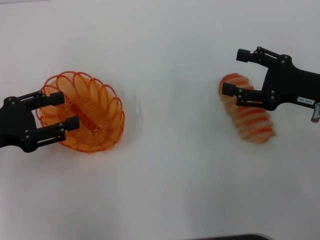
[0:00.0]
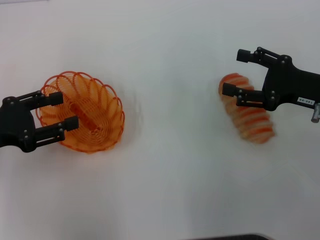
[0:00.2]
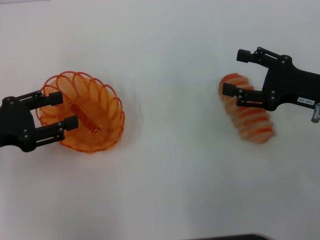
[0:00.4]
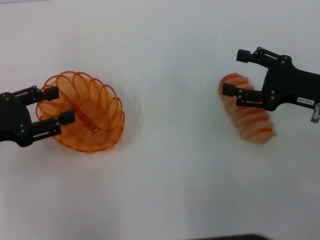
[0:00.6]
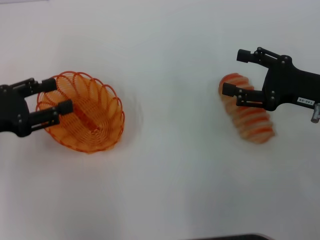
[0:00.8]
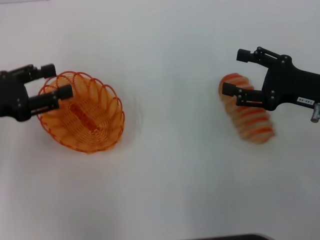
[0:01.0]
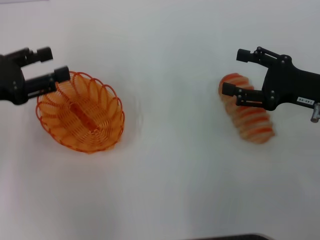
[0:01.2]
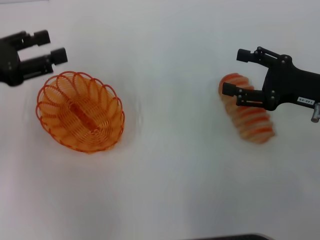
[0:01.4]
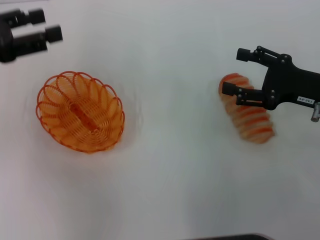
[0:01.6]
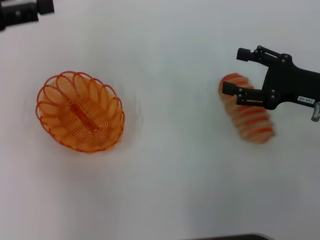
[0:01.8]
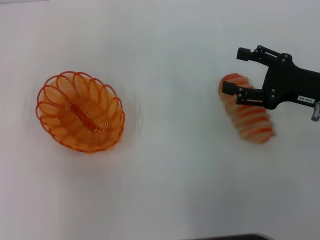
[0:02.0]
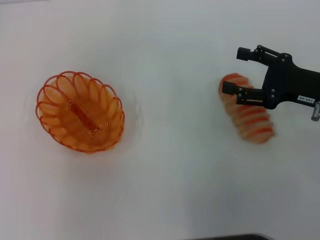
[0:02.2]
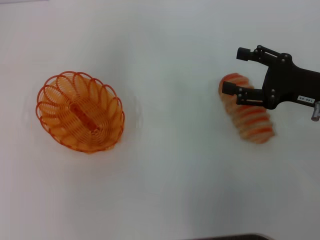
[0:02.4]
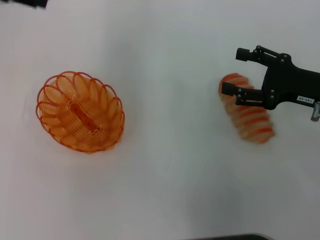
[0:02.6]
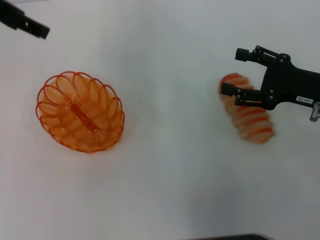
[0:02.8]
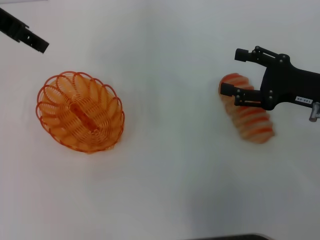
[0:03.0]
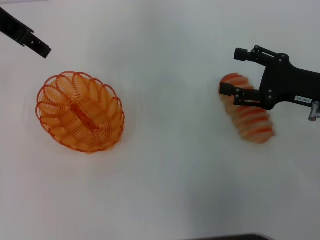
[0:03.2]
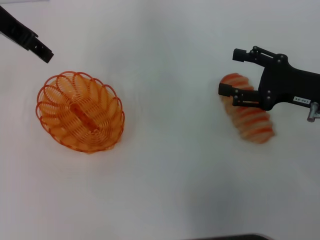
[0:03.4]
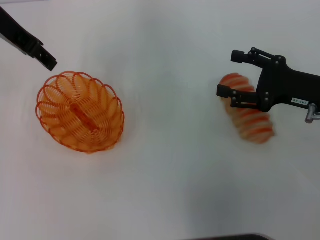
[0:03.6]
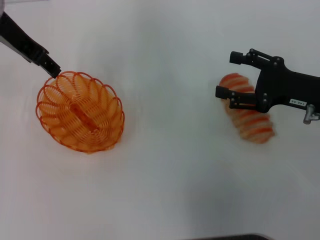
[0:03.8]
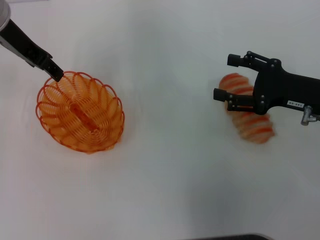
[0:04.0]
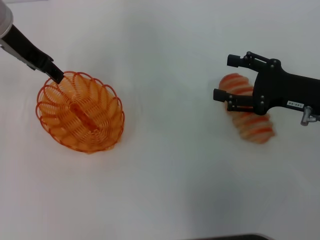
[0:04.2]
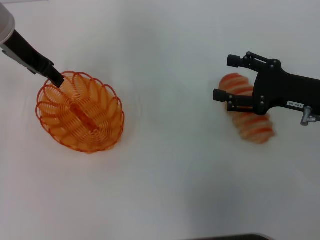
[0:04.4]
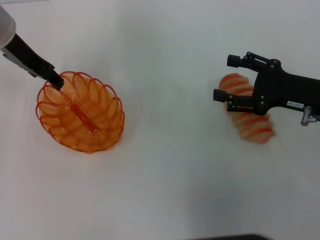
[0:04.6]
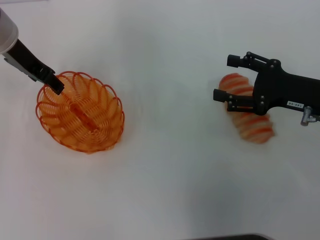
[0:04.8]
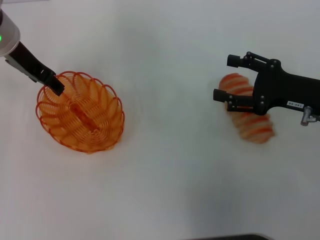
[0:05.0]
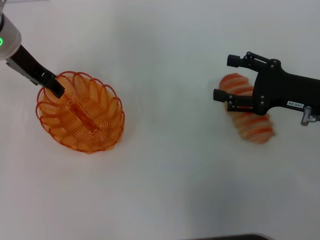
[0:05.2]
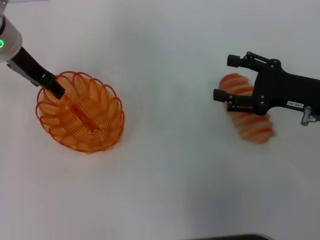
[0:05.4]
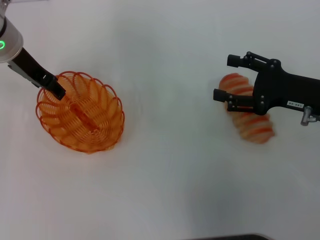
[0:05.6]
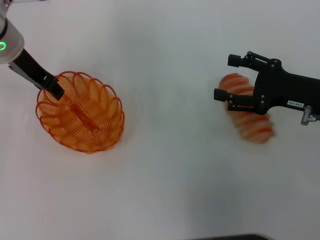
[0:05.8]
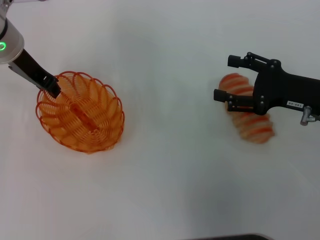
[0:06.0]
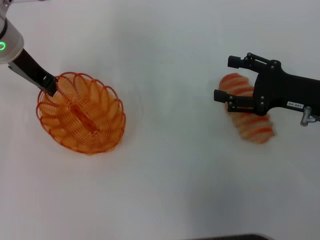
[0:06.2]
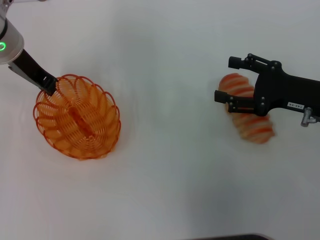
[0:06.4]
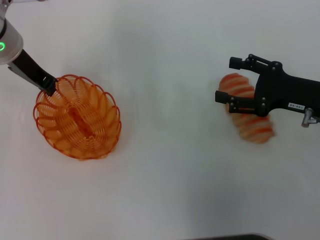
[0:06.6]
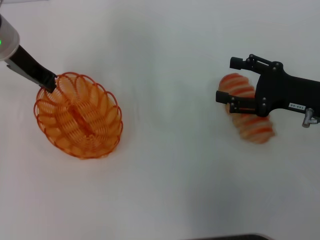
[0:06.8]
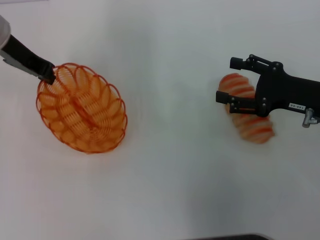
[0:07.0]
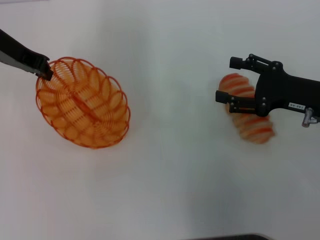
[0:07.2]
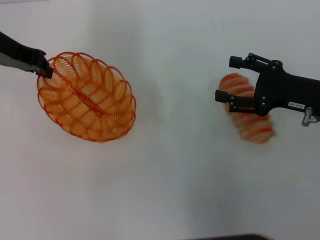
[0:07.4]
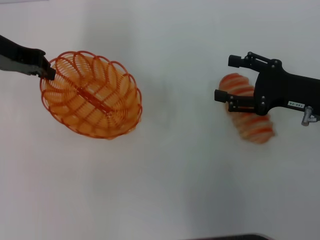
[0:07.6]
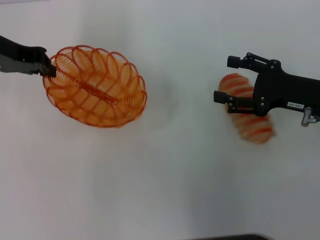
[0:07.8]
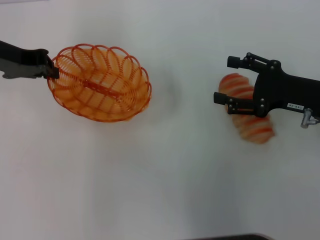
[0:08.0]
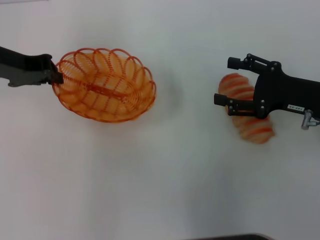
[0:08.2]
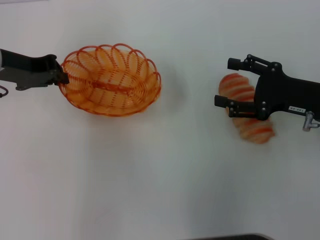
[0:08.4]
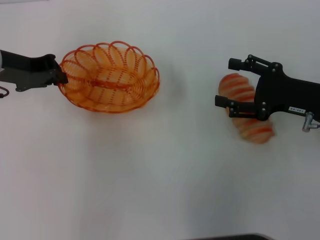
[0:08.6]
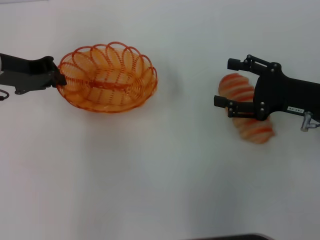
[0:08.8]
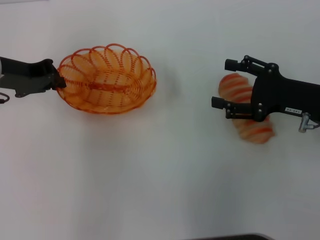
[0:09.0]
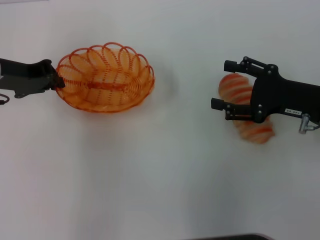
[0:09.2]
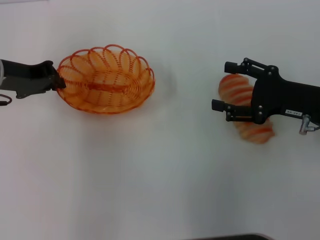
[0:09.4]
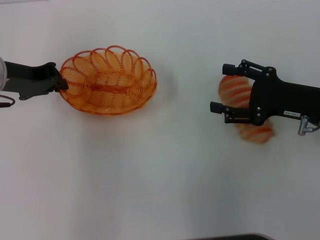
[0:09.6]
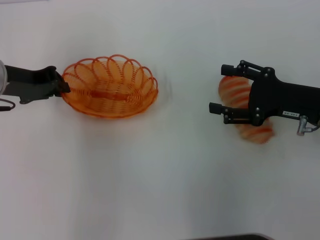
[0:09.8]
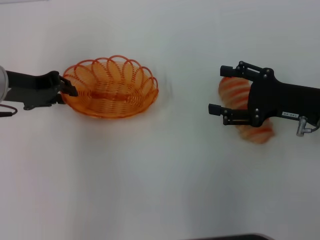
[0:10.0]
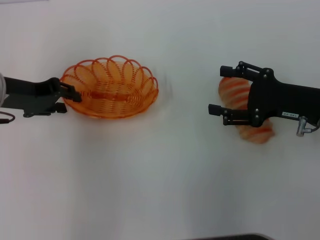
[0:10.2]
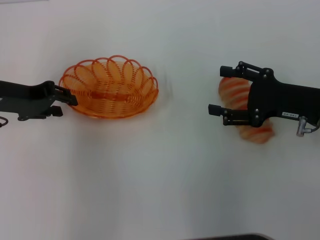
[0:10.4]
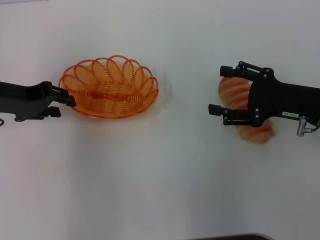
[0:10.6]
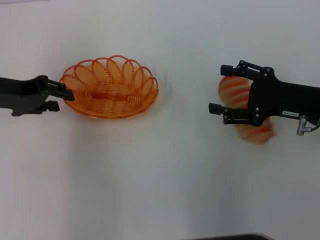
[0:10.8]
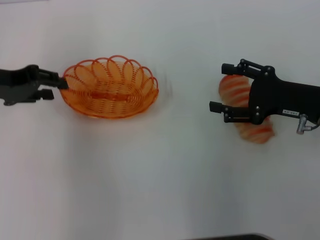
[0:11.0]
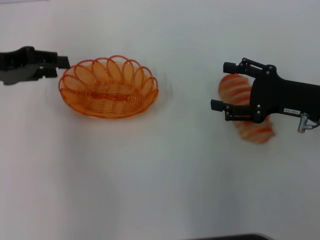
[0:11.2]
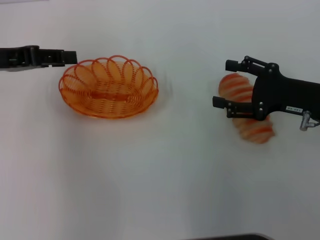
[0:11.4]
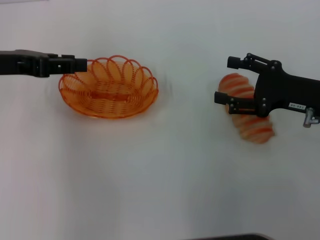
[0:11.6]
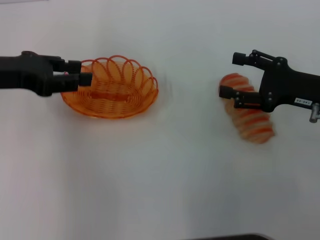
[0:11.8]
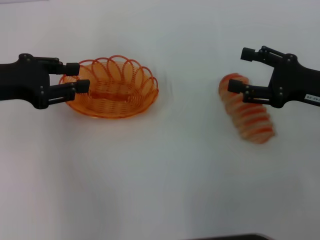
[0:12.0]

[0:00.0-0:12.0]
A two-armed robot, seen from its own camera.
Step, 0:00.0 to 0:07.4: Pick up the basket with the left gripper.
Step, 0:07.6 to 0:11.2: Place the basket in the center of view with the left gripper.
0:00.0 to 0:01.6: The left gripper moves upward and forward, some 10 cm.
0:01.6 to 0:03.0: The left gripper heads upward, forward and to the right, covering approximately 15 cm.
0:03.0 to 0:04.4: The left gripper shifts approximately 10 cm downward.
0:04.4 to 0:06.0: The grippers make only small movements.
0:06.0 to 0:07.6: The left gripper moves approximately 5 cm, and closes up.
0:07.6 to 0:09.0: The left gripper is displaced downward by some 5 cm.
0:09.0 to 0:10.4: The left gripper opens its fingers.

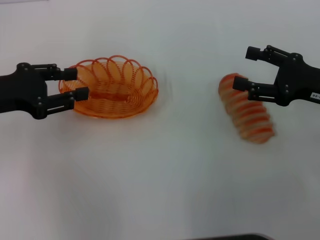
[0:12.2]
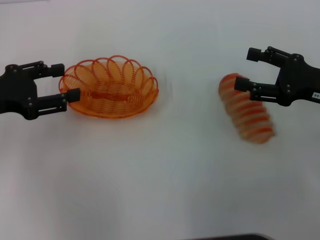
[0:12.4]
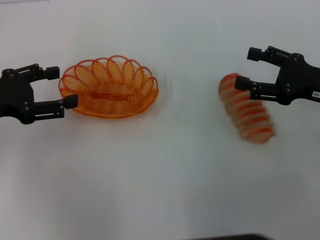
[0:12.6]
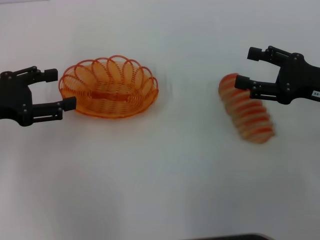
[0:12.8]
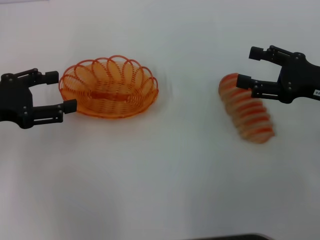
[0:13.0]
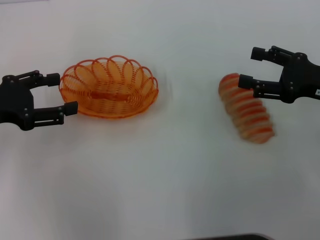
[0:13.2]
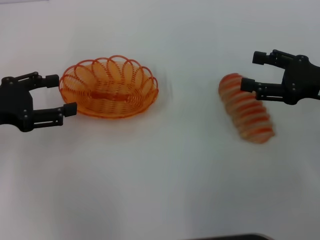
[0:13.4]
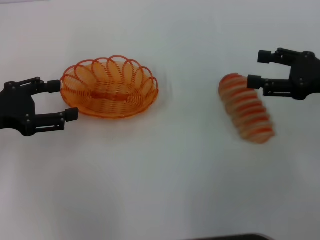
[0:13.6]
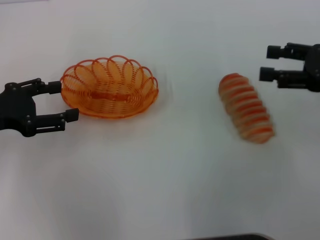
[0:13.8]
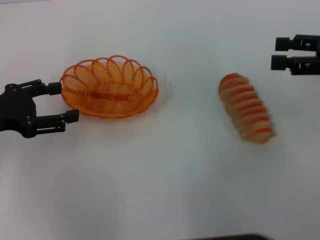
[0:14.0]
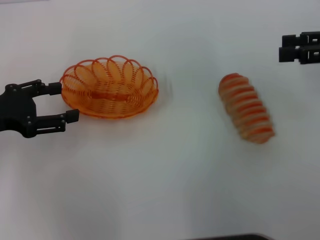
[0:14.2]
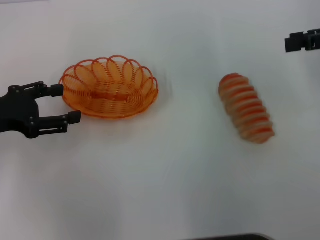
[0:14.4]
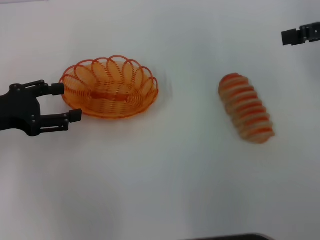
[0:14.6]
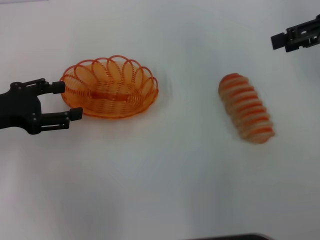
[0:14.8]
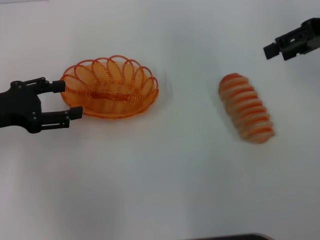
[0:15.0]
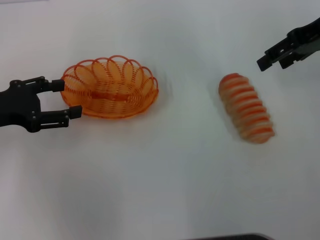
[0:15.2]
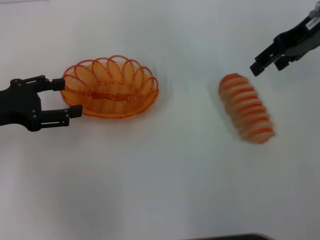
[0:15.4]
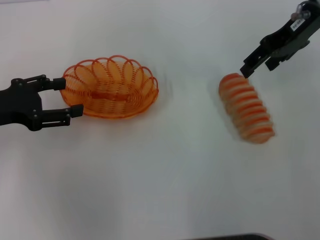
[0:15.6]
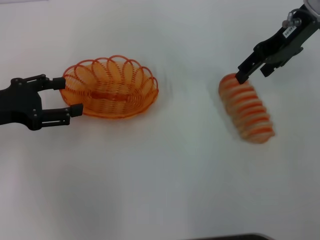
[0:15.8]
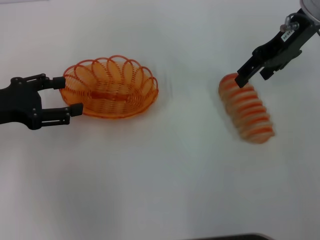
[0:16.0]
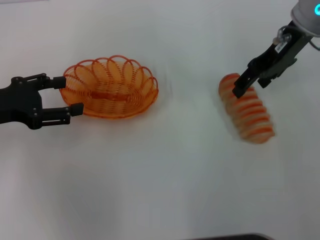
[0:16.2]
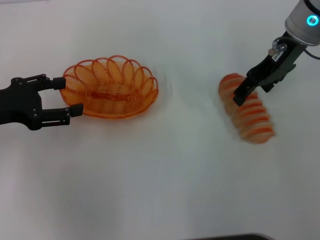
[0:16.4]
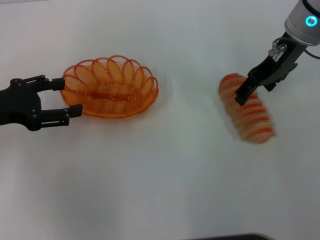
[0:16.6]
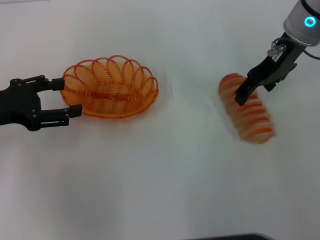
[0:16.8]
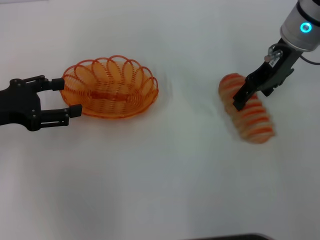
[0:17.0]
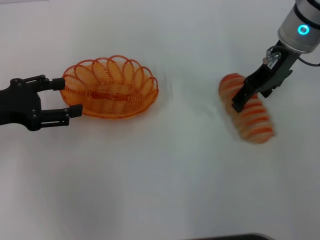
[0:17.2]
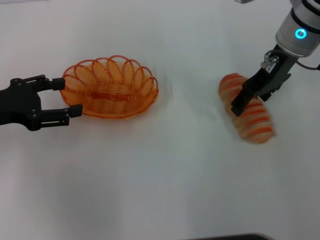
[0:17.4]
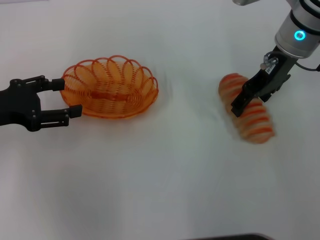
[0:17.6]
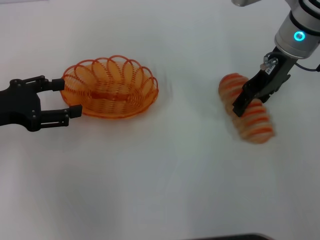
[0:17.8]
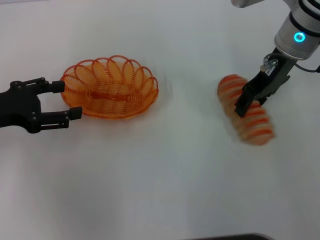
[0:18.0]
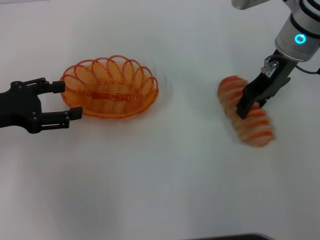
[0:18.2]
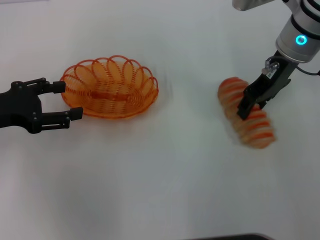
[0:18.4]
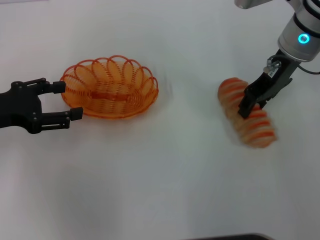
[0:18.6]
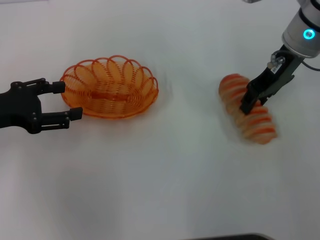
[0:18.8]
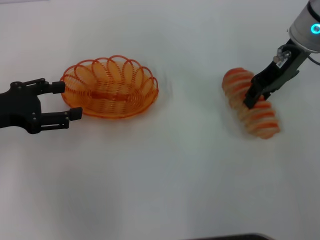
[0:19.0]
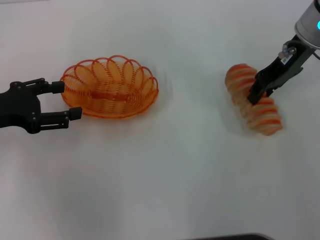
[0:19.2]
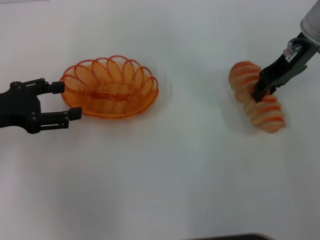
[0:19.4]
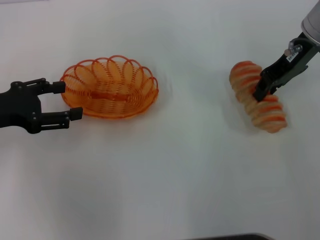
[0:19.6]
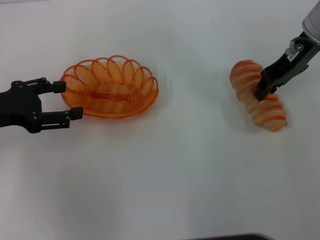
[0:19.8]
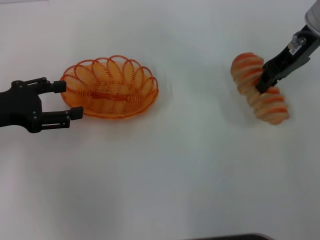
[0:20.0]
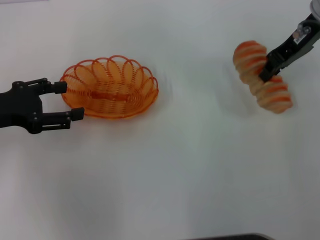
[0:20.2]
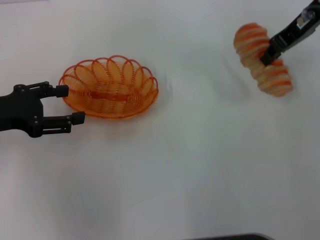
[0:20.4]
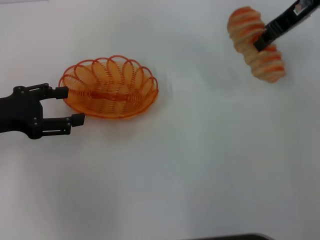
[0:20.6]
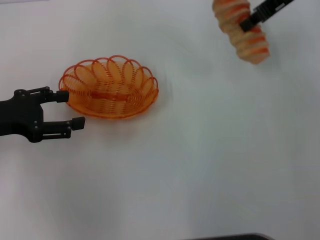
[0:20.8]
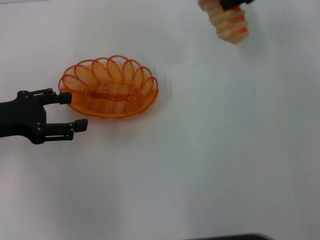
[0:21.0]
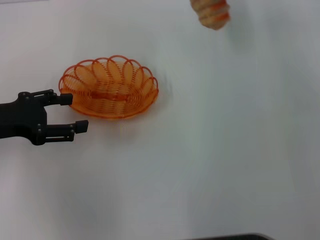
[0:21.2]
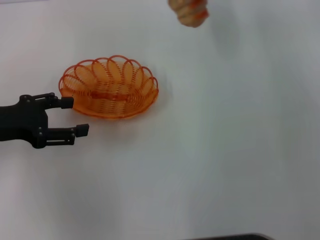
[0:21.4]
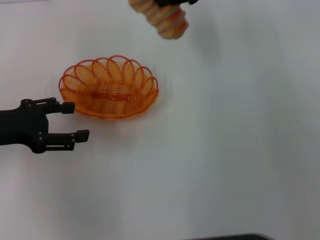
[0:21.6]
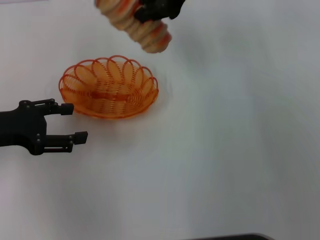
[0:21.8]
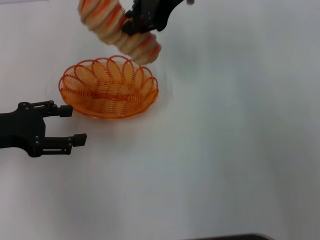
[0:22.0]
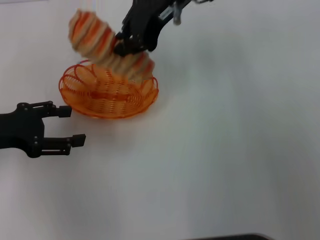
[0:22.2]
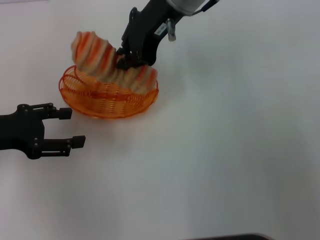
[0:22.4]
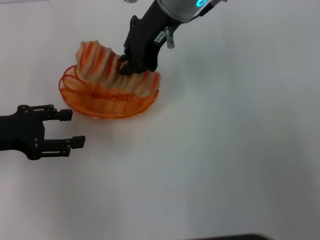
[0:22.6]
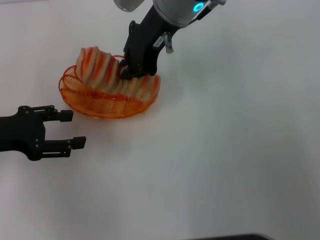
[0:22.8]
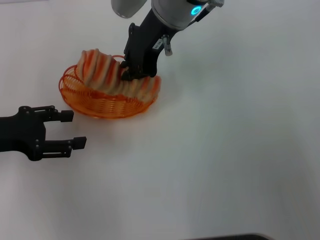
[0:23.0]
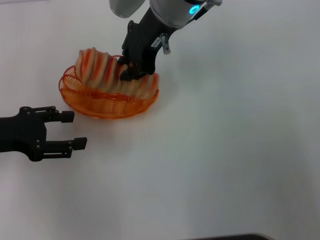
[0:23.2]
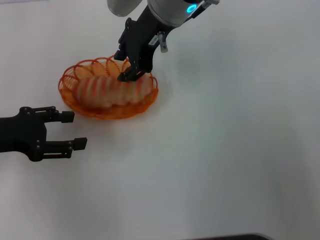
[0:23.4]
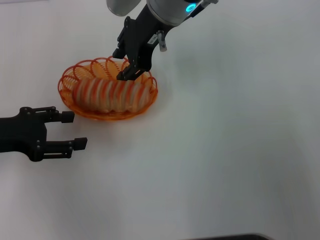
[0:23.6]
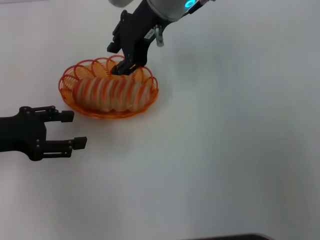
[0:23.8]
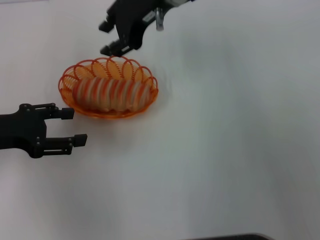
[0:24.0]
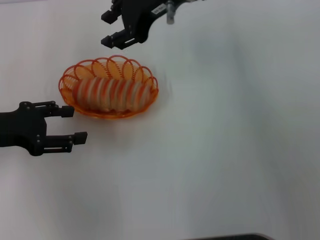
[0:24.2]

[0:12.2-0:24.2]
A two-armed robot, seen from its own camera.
Step, 0:12.2 to 0:19.2: Pick up the long bread with the right gripper.
Step, 0:19.4 to 0:23.8: Place the long bread into the basket with the right gripper.
0:12.2 to 0:13.8: The right gripper shifts by roughly 5 cm. Meanwhile the left gripper opens up.
0:13.8 to 0:15.2: The right gripper moves forward and upward, approximately 15 cm.
0:15.2 to 0:16.6: The right gripper shifts roughly 10 cm to the left.
0:16.6 to 0:18.2: The right gripper closes up.
0:18.2 to 0:19.8: The right gripper closes.
0:19.8 to 0:21.2: The right gripper is displaced upward by roughly 10 cm.
0:21.2 to 0:22.6: The right gripper shifts about 15 cm to the left.
0:22.6 to 0:24.2: The right gripper opens up.
